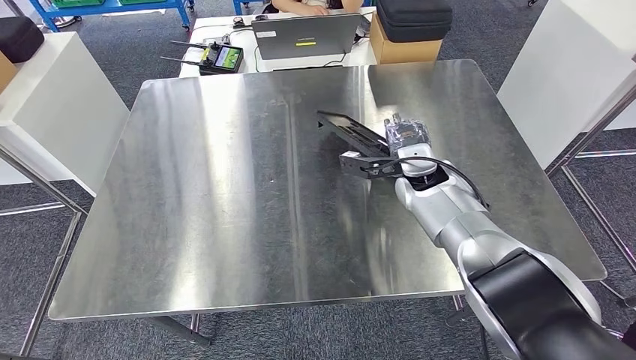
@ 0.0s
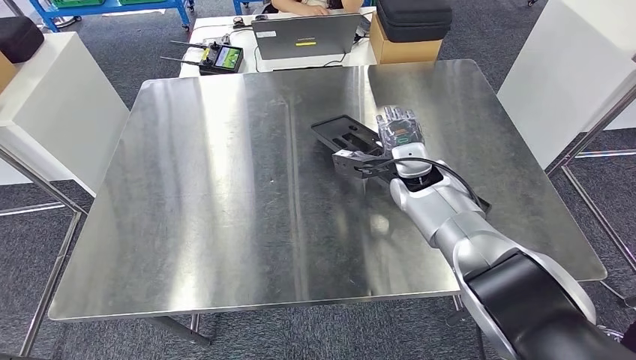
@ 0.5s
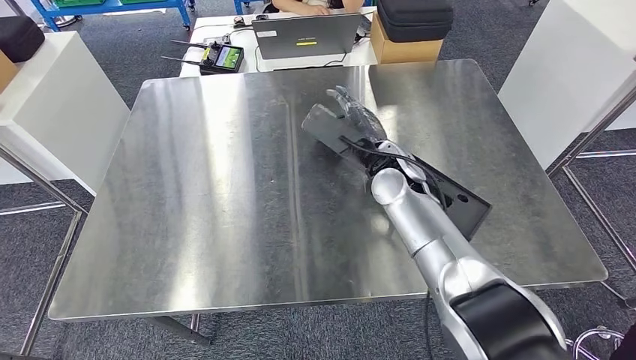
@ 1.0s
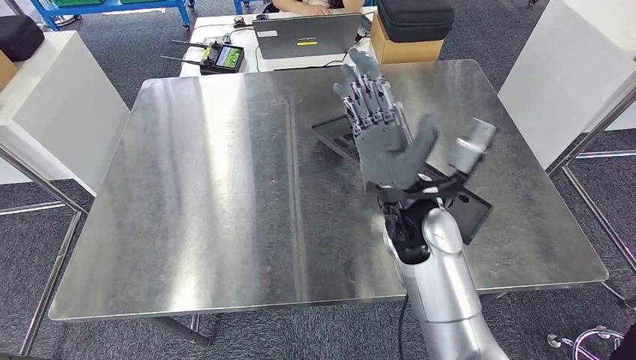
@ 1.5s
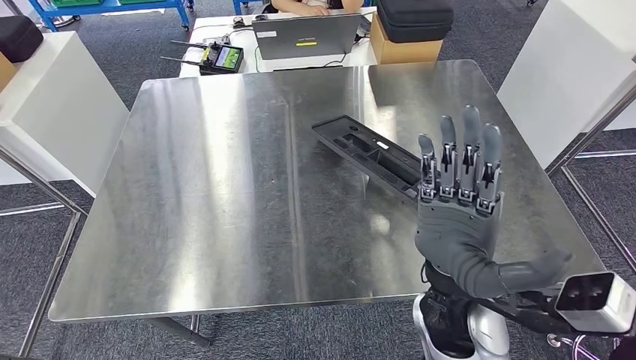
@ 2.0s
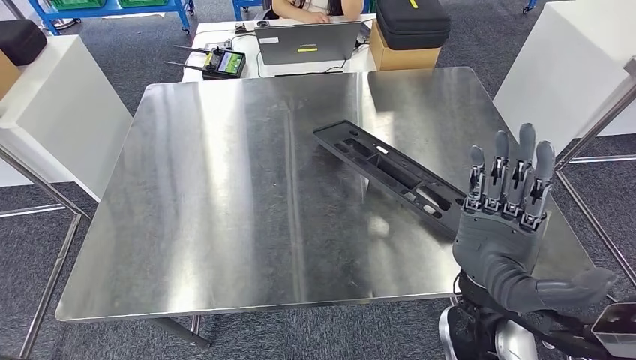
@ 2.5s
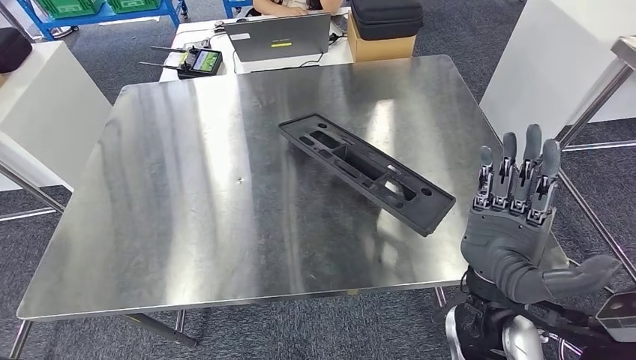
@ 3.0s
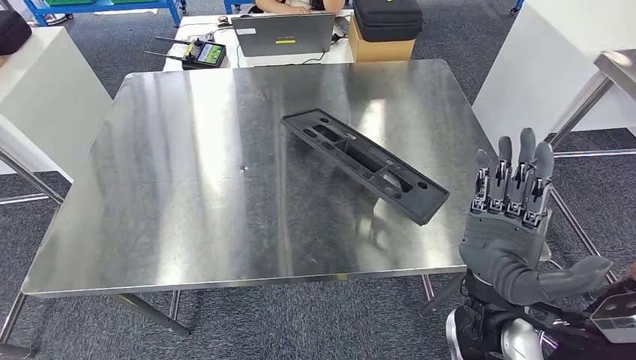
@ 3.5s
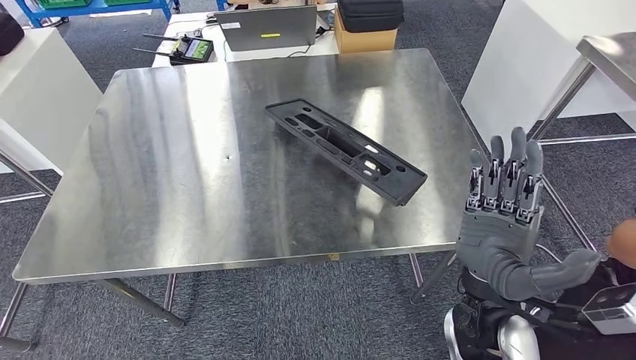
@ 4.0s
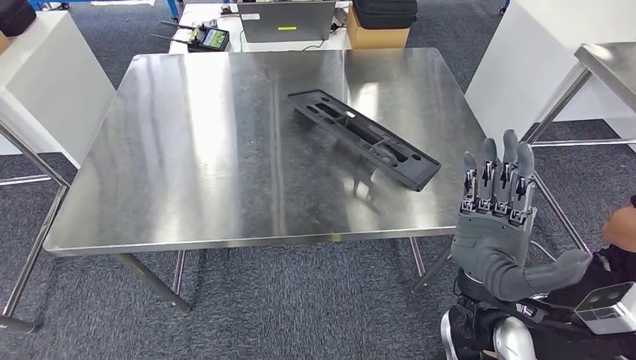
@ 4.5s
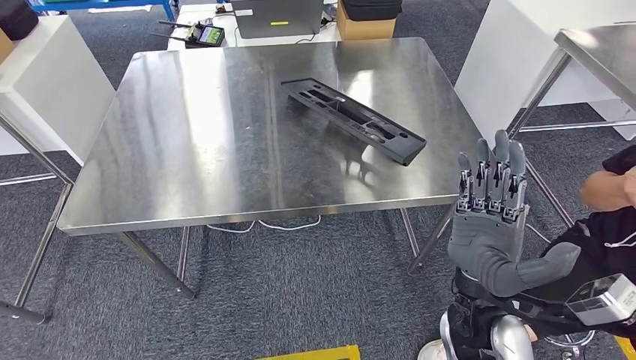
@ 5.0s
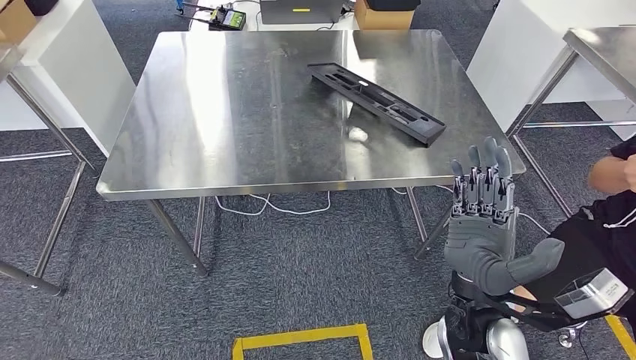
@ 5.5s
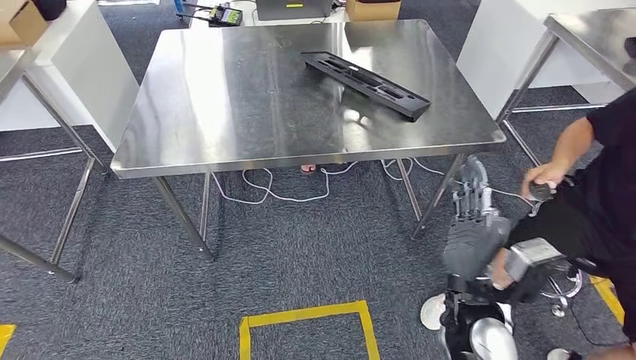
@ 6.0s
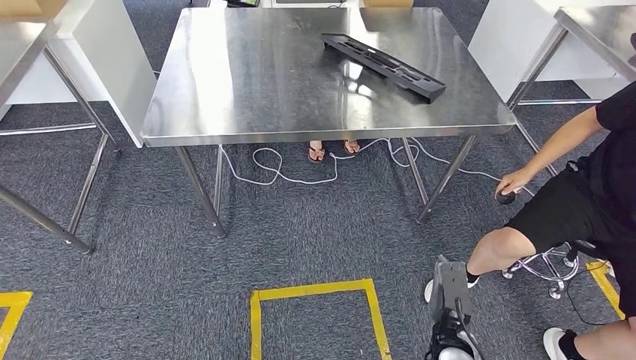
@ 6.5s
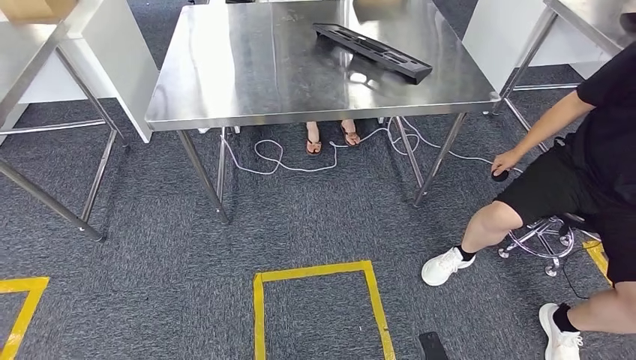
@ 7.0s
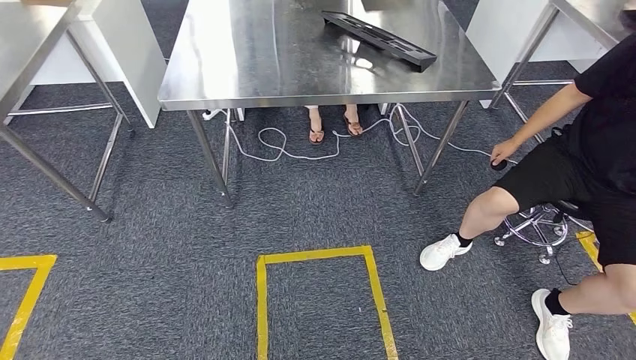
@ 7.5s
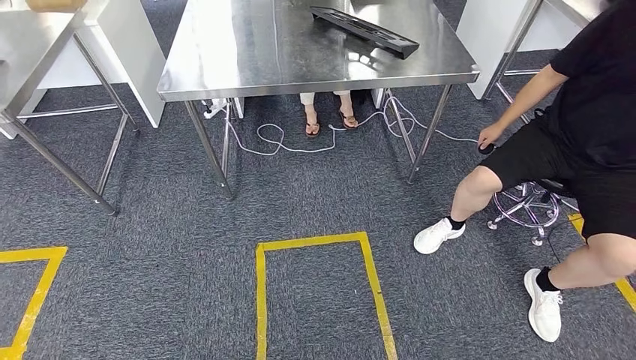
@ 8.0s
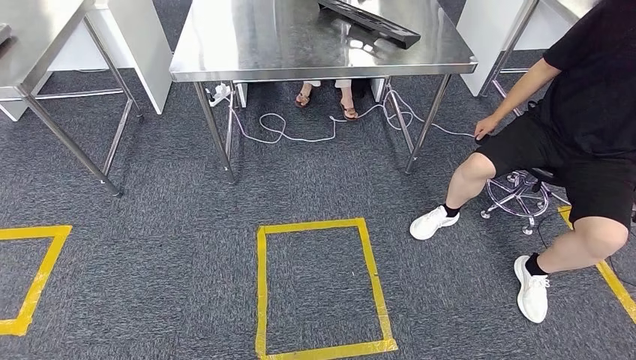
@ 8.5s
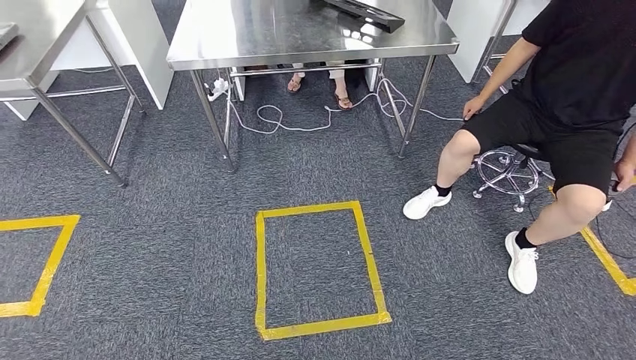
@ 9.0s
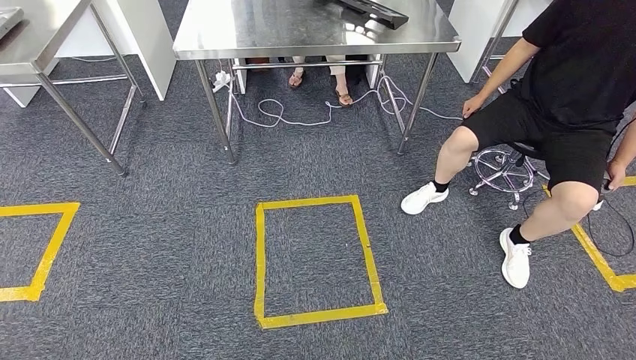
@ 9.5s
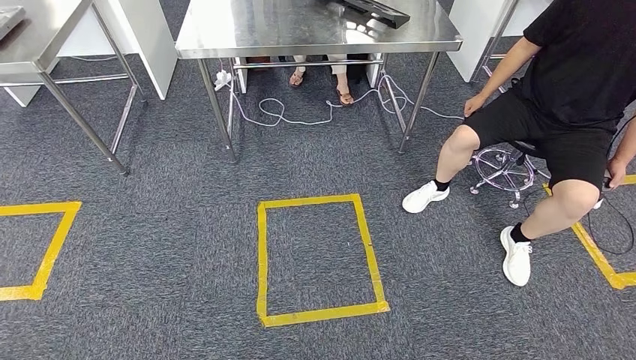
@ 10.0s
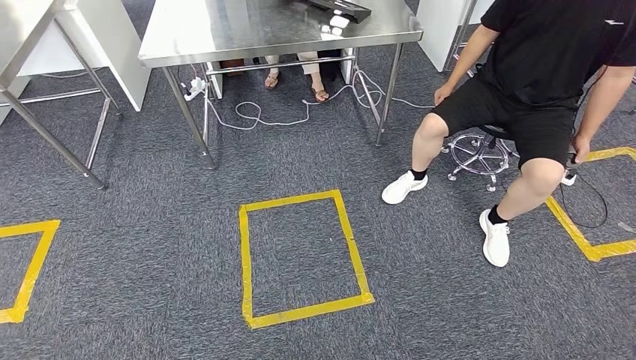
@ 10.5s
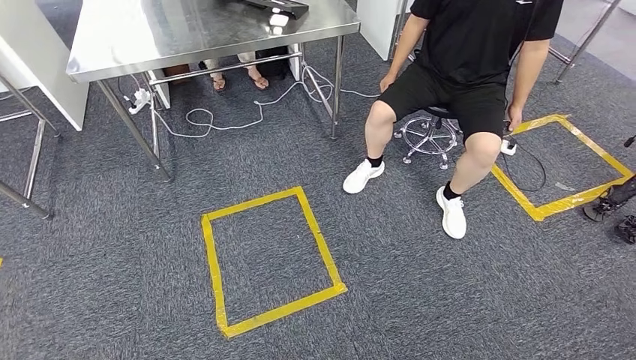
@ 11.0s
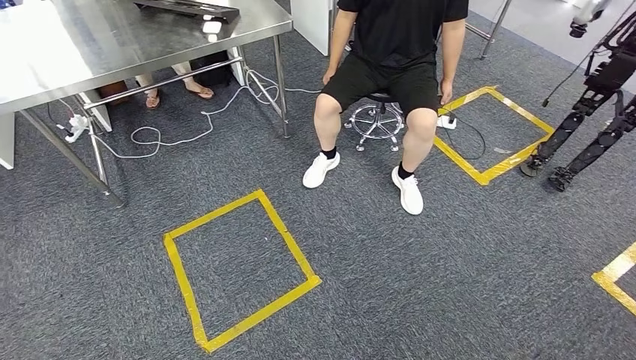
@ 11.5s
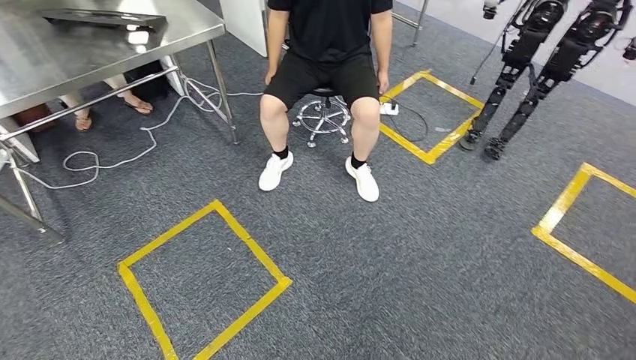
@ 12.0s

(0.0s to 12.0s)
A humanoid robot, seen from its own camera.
Step, 0.0s - 7.5s: Insert the large material into the corresponding slot on the workbench.
0.0s - 2.0s: The right hand heads backward, covering about 25 cm.

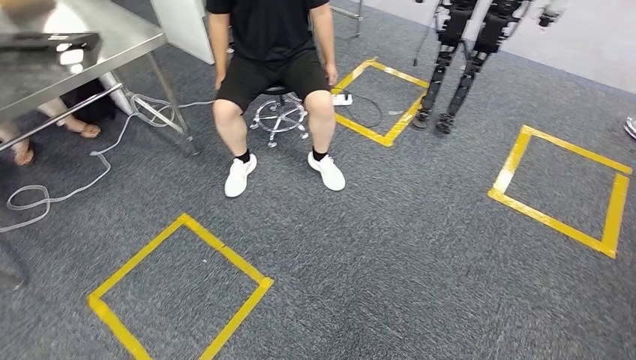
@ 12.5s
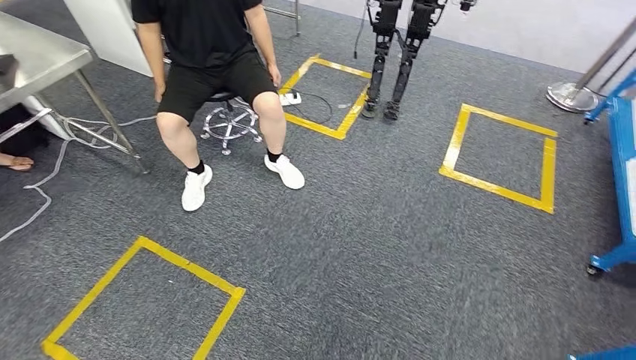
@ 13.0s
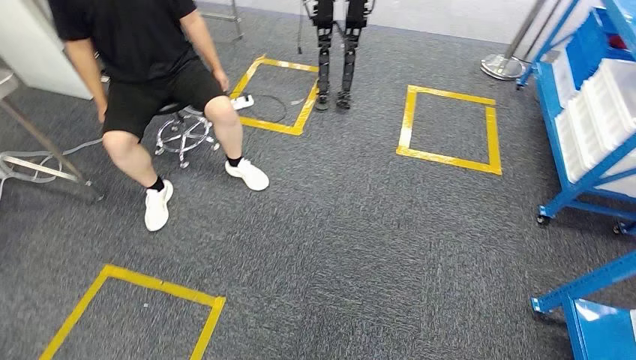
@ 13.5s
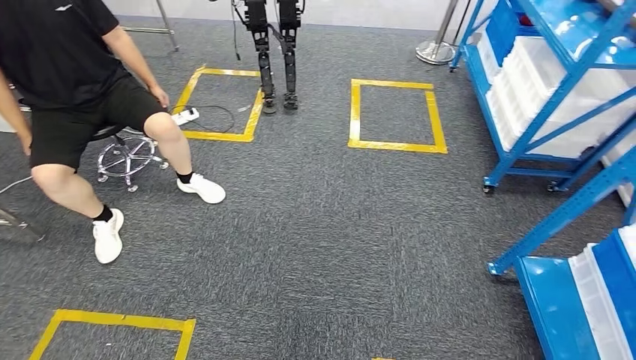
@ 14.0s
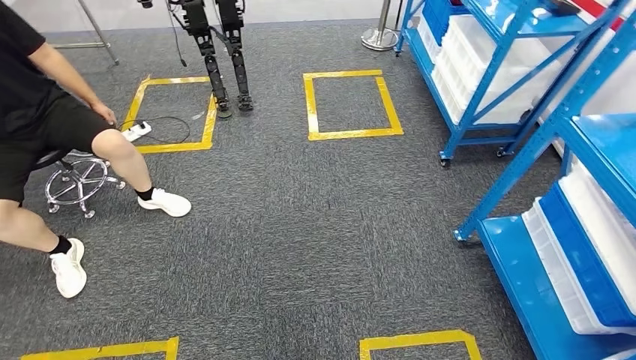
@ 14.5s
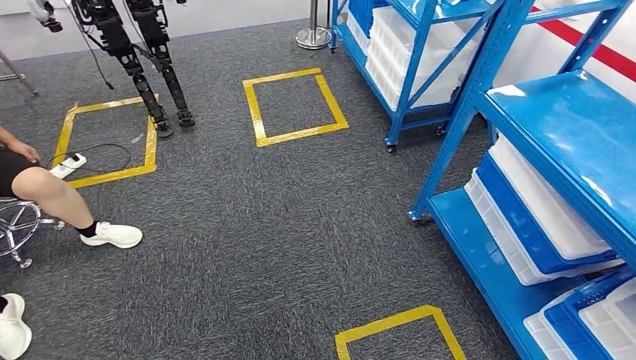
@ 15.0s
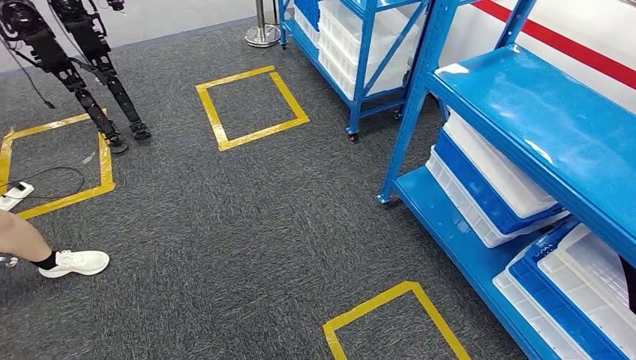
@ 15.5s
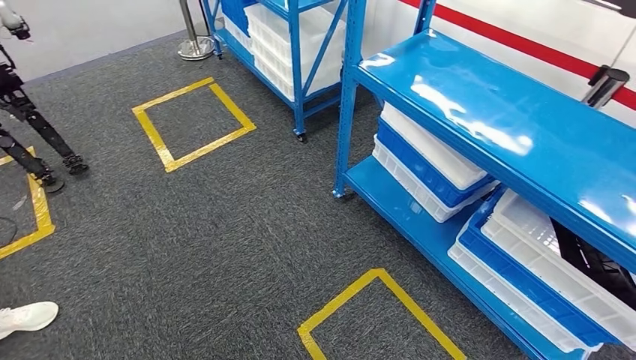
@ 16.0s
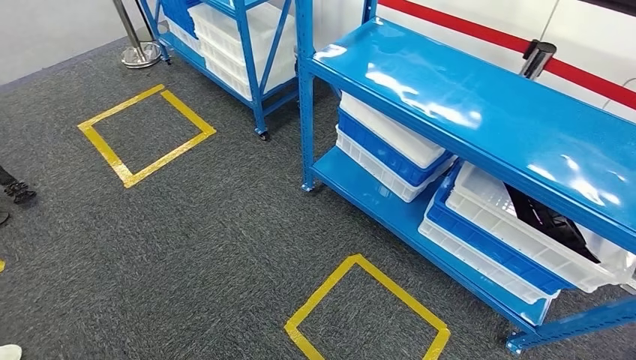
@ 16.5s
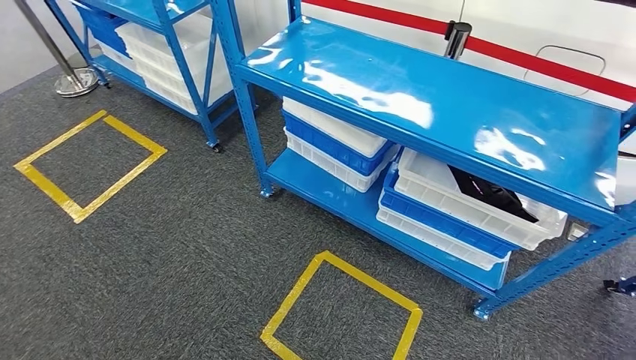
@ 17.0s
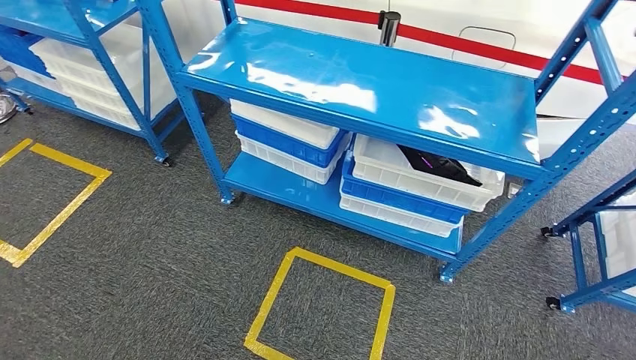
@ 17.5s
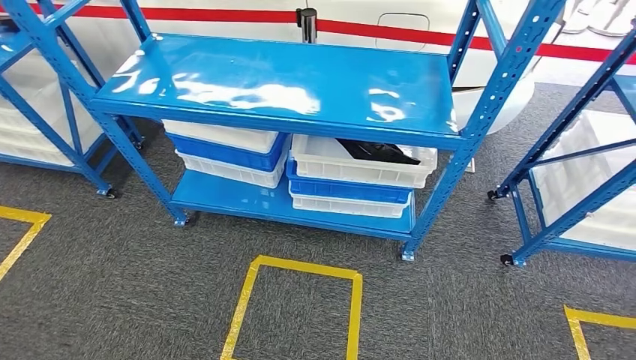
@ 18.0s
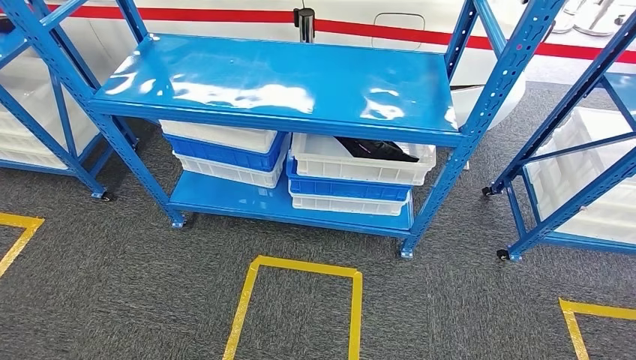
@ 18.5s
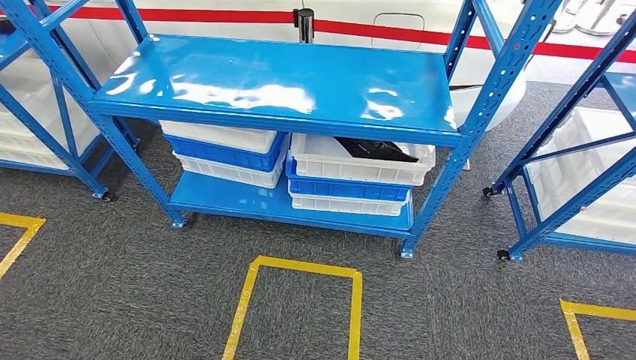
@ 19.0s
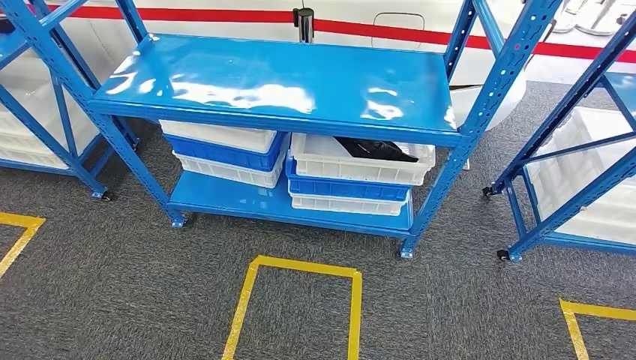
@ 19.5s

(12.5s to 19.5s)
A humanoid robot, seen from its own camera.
Step, 12.5s - 19.0s: Return to the initial position at the shelf.

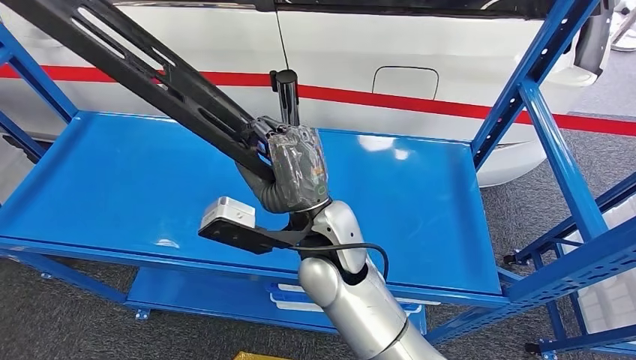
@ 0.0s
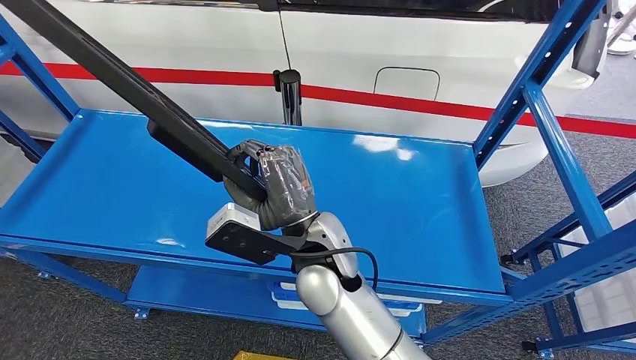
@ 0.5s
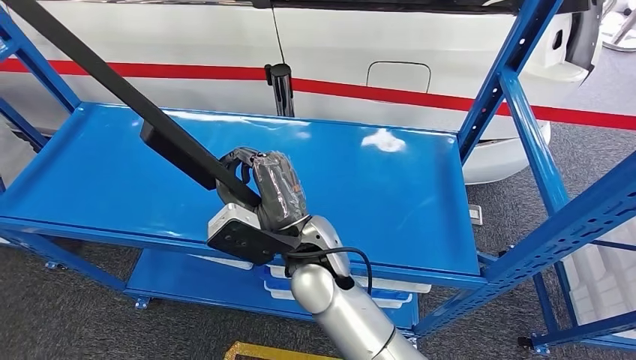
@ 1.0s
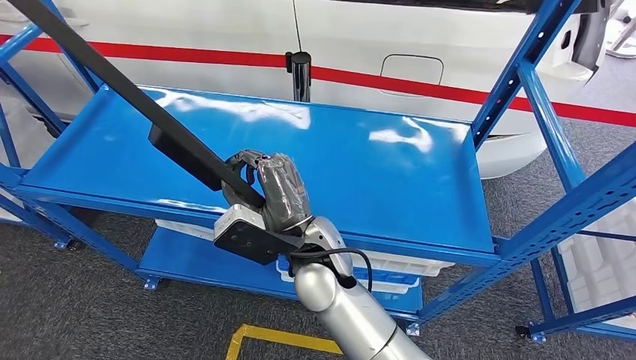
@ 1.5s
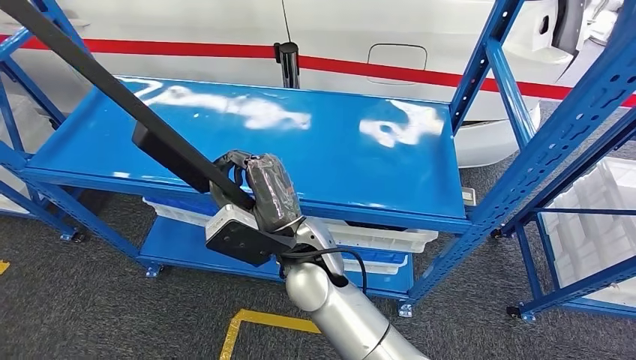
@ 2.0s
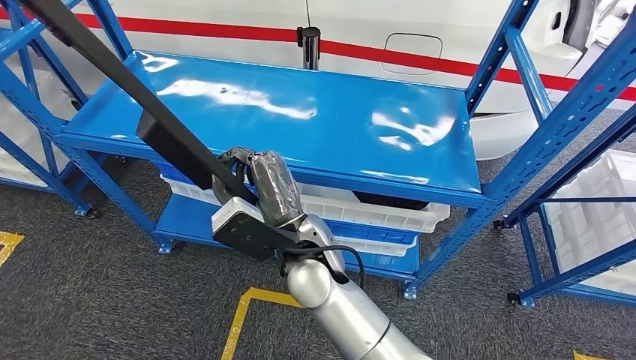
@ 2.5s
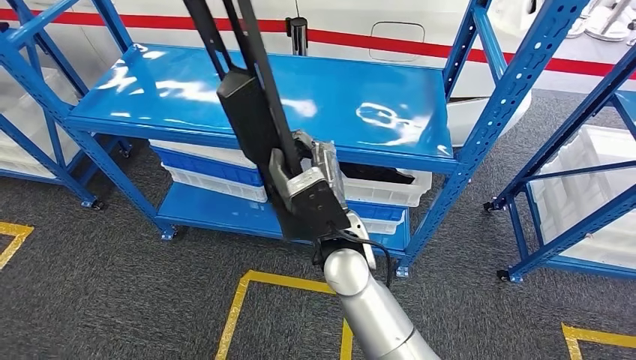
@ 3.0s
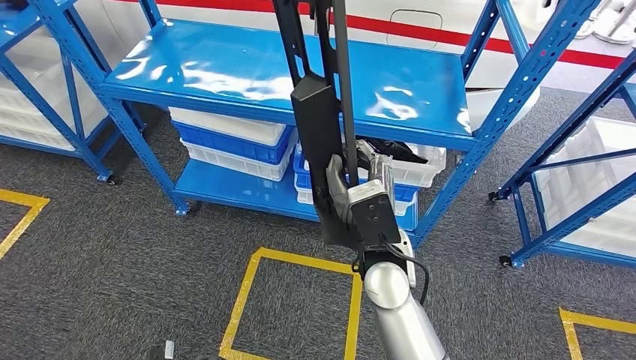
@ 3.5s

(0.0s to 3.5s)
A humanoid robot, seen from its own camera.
Step, 0.0s - 2.5s: Pick up the large material from the shelf.
